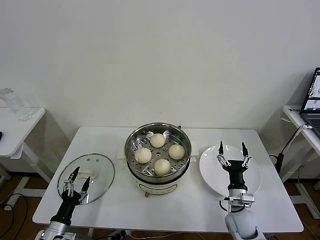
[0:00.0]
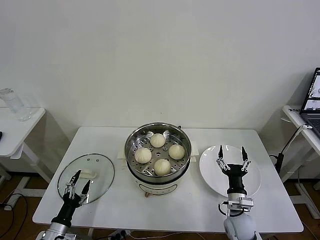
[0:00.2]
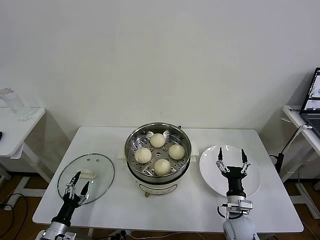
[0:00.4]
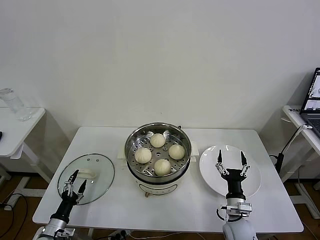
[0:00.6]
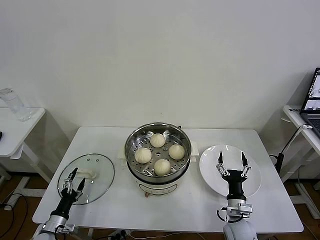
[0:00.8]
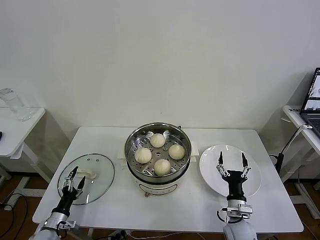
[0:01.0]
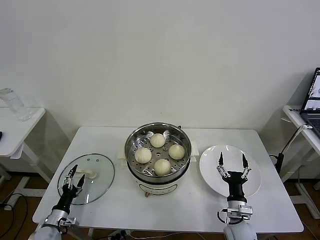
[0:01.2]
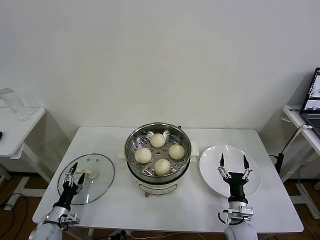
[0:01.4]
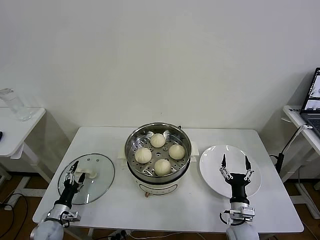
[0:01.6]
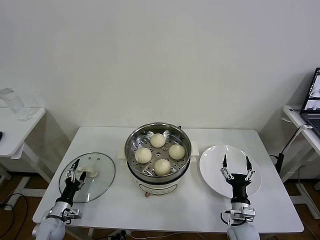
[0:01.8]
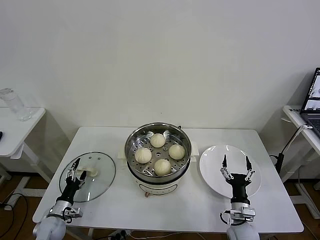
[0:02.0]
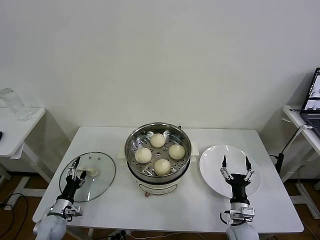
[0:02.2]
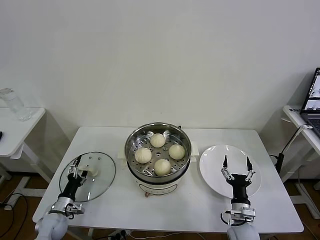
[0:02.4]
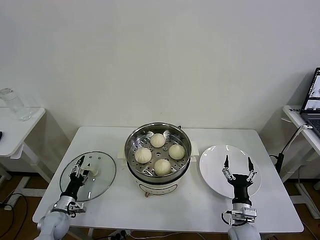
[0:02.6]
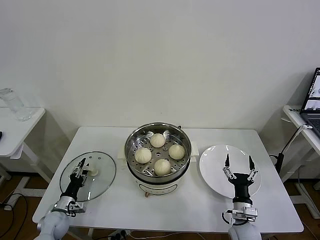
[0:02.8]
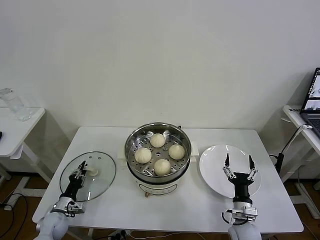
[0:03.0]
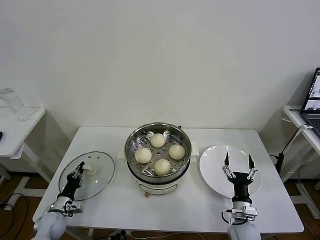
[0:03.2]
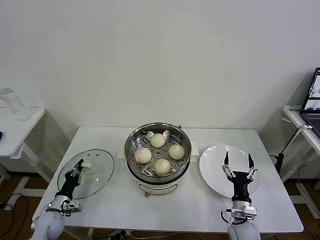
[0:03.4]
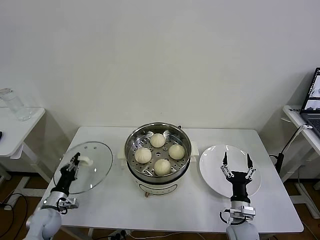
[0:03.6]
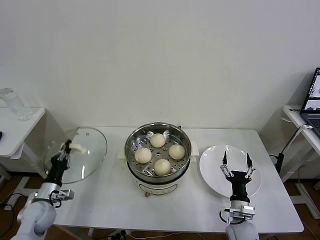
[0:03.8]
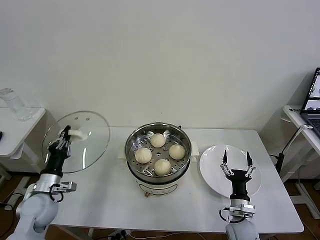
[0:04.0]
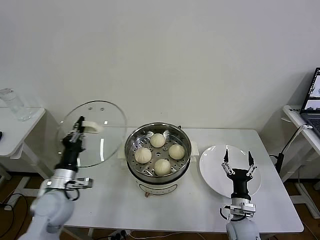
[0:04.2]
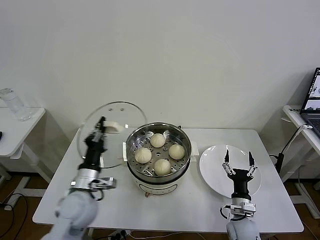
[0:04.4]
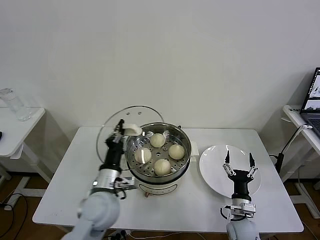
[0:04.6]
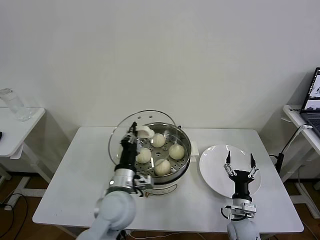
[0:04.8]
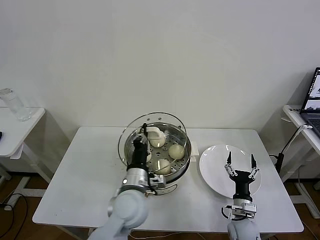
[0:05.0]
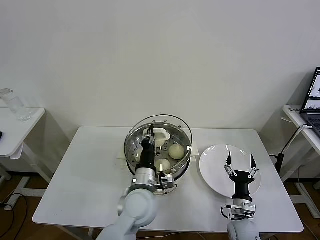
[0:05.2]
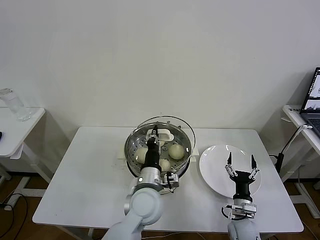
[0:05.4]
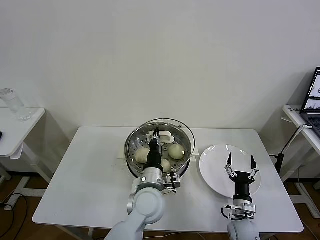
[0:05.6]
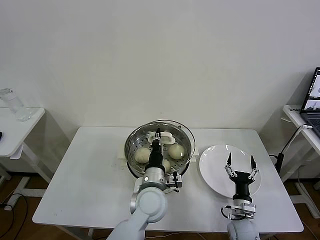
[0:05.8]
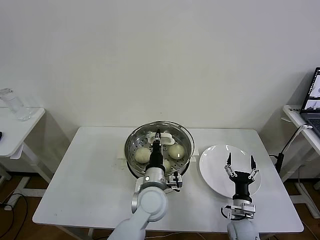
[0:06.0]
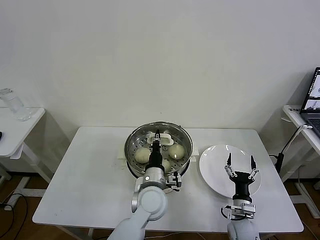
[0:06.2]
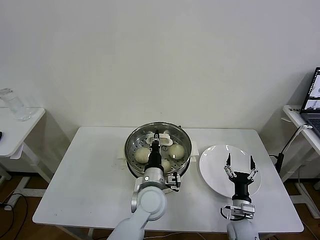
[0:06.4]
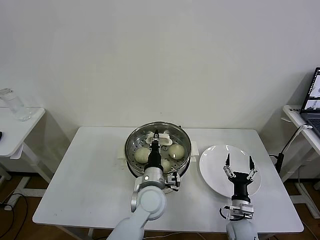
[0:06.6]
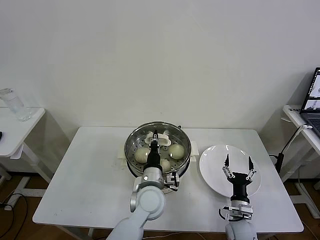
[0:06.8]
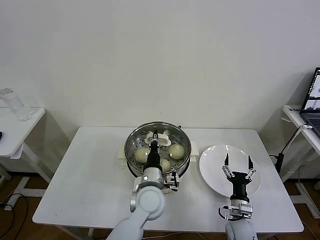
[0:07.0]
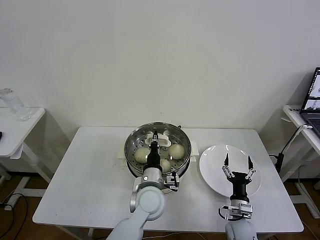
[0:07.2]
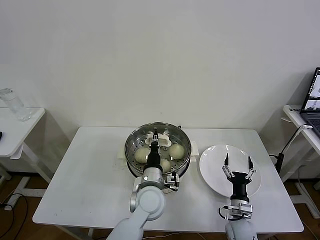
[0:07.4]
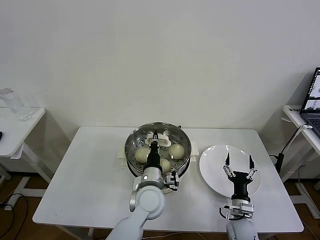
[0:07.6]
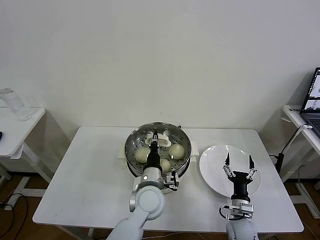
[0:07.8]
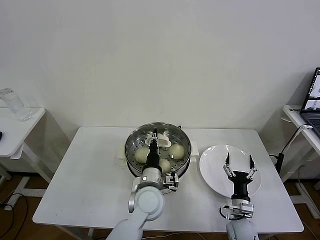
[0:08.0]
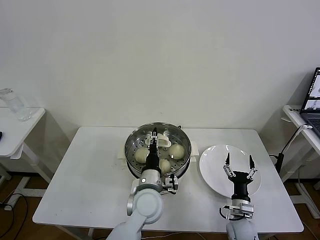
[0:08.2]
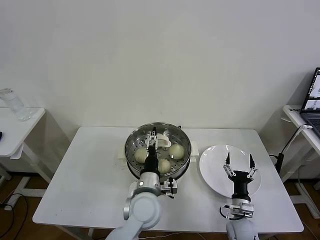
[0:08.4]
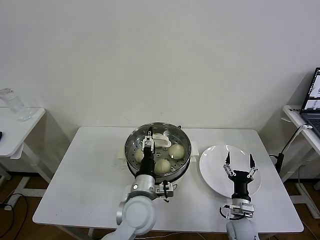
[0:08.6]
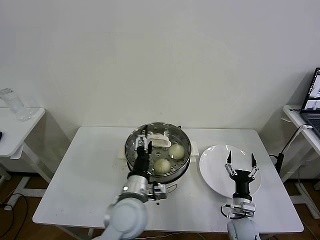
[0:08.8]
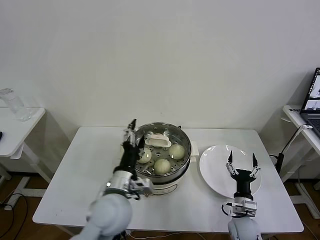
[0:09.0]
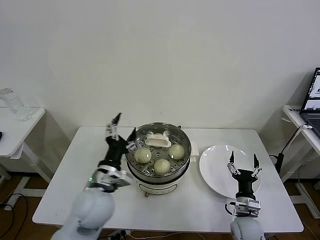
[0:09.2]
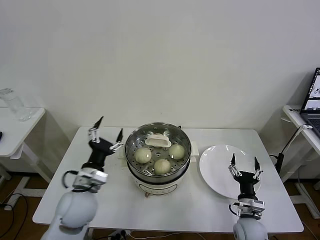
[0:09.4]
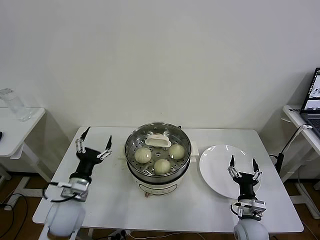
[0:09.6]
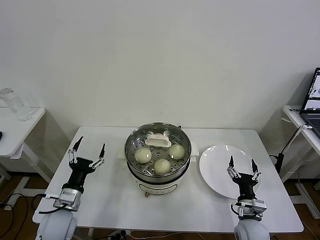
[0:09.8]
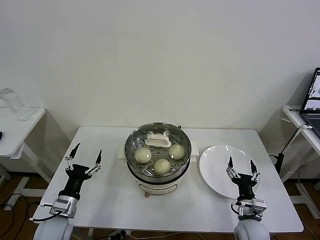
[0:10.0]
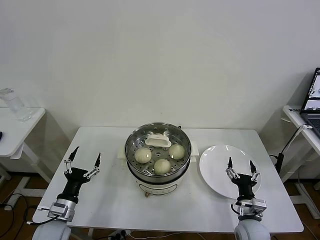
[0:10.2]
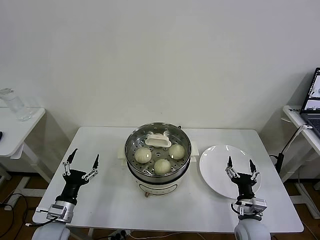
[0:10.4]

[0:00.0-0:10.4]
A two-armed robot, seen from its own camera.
Task of the whole recording: take steamed baozi put them in steamer then cover it.
Step, 0:00.0 to 0:03.2: Grasp the pot lid with left gripper.
Step, 0:03.4 to 0:08.2: Place the pot lid on the steamer with left gripper.
0:00.0 to 0:01.4: The left gripper travels forward, downward and to the left by about 10 cm.
0:01.4 to 0:03.0: The left gripper closes.
0:03.0 to 0:04.4: The left gripper heads upward and to the right, covering roughly 30 cm.
0:04.4 to 0:06.0: The left gripper moves to the right, roughly 20 cm.
0:06.0 to 0:07.4: The grippers stay close to where they were, moving slightly.
0:07.4 to 0:09.0: The left gripper shifts approximately 10 cm to the left, upward and backward, and opens its fingers.
0:09.0 to 0:10.4: The left gripper travels to the left and downward by roughly 25 cm, while the right gripper moves some 5 cm.
